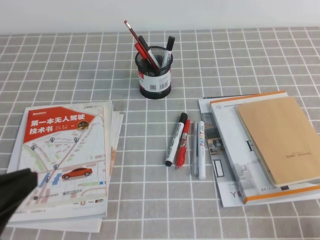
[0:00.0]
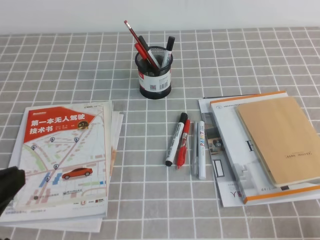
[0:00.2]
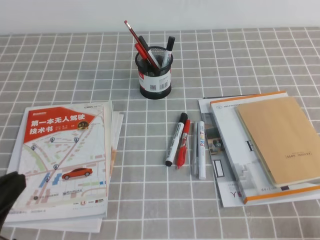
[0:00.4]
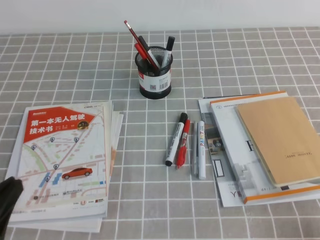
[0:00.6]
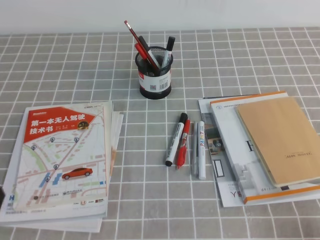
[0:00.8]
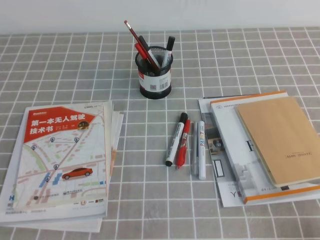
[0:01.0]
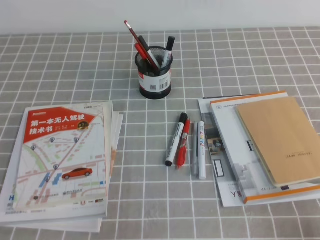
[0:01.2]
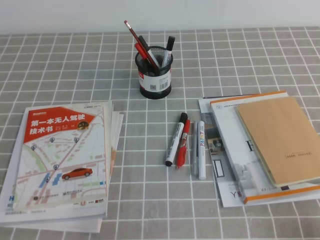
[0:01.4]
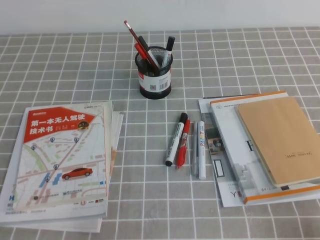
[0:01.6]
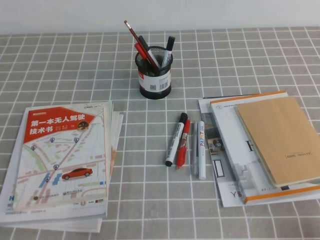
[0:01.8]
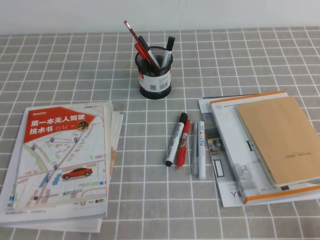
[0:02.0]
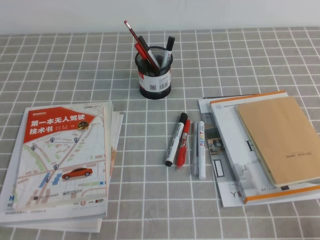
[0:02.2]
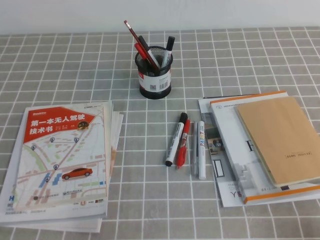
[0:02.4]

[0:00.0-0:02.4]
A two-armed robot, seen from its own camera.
Step, 0:00.0 to 0:02.4: Pick up the pen from the pen holder.
0:00.0 to 0:01.2: The left gripper shifts roughly 15 cm downward.

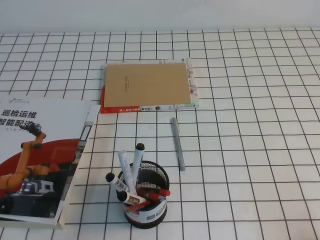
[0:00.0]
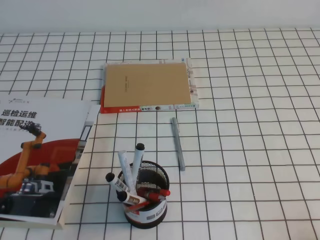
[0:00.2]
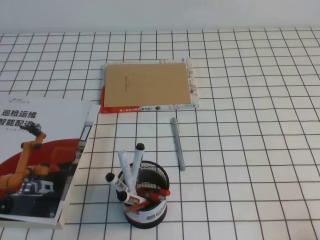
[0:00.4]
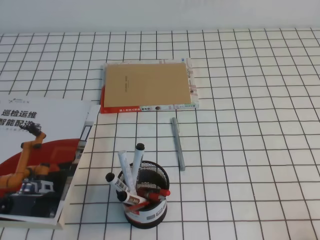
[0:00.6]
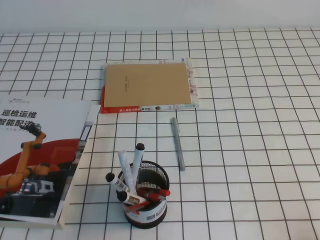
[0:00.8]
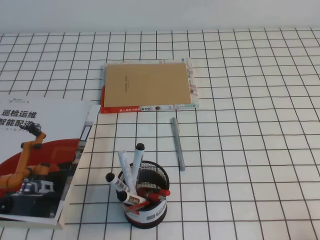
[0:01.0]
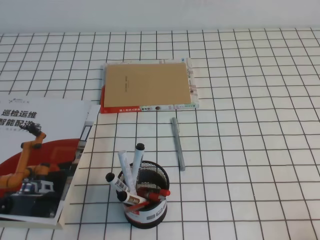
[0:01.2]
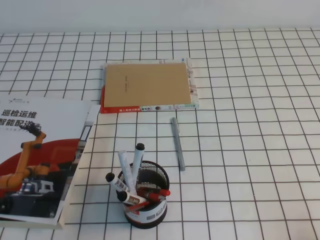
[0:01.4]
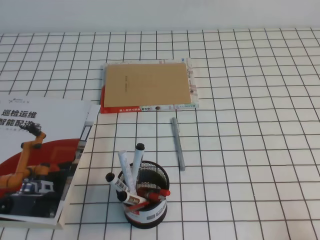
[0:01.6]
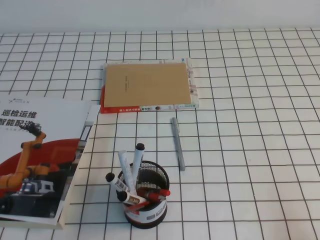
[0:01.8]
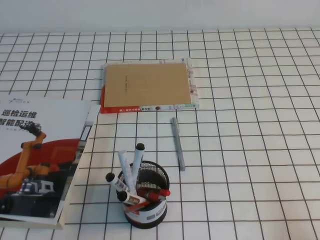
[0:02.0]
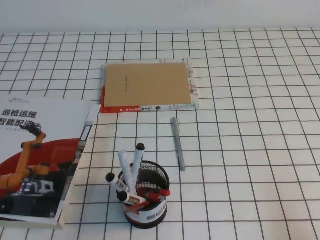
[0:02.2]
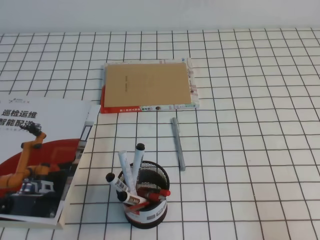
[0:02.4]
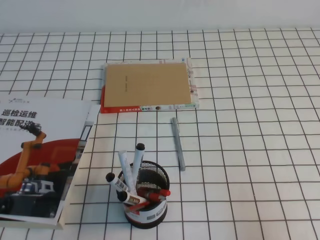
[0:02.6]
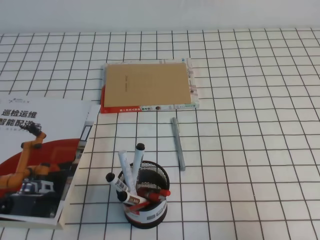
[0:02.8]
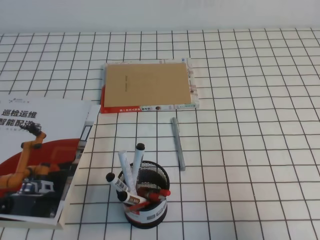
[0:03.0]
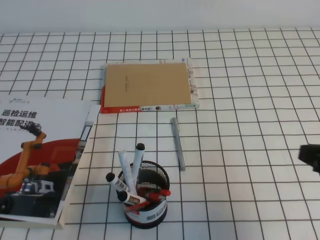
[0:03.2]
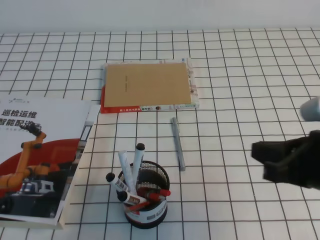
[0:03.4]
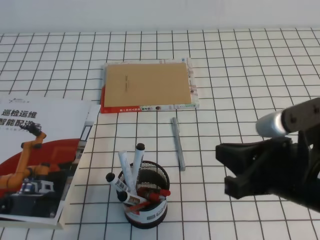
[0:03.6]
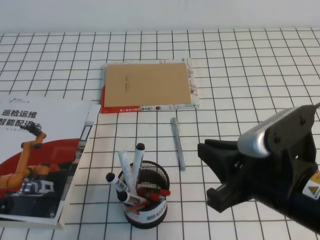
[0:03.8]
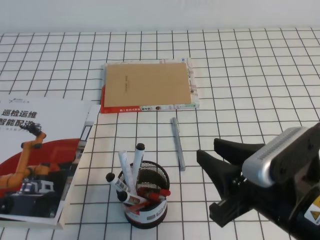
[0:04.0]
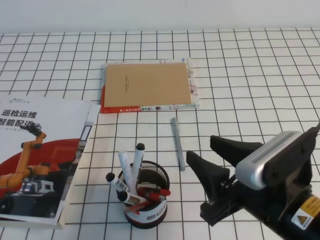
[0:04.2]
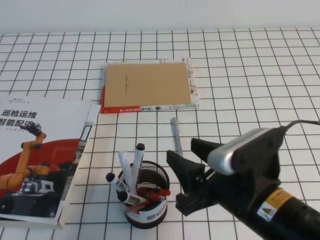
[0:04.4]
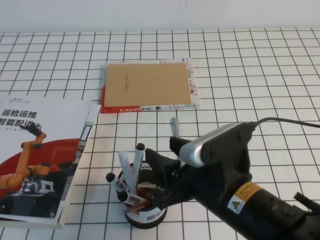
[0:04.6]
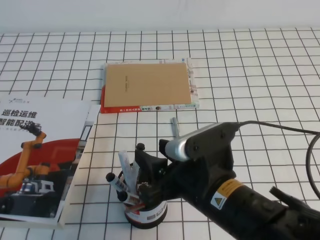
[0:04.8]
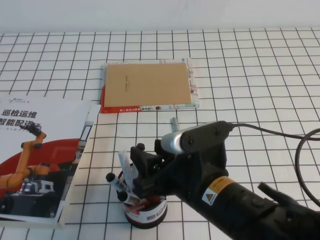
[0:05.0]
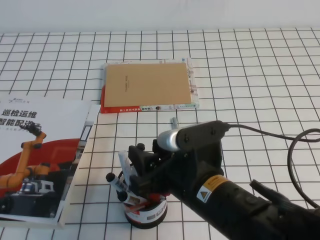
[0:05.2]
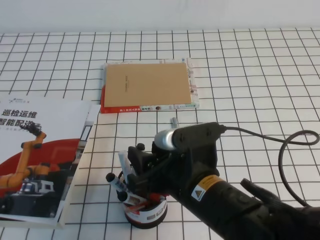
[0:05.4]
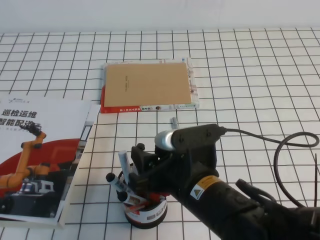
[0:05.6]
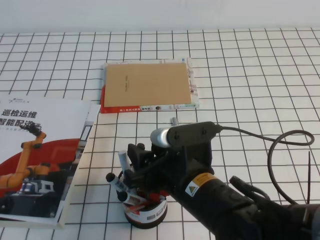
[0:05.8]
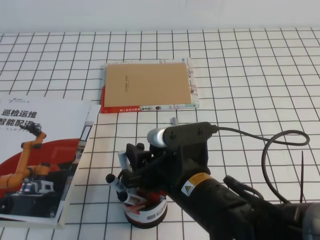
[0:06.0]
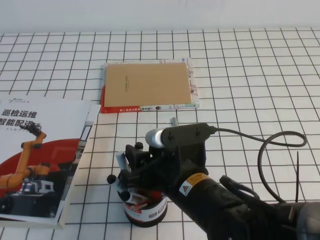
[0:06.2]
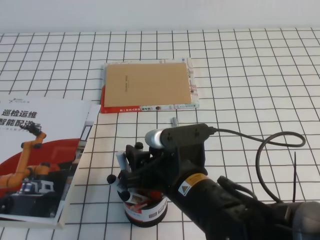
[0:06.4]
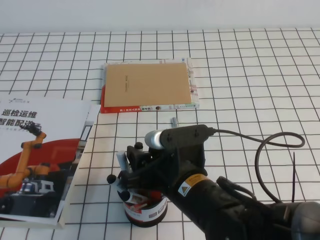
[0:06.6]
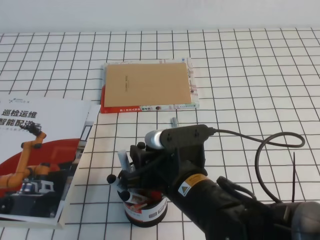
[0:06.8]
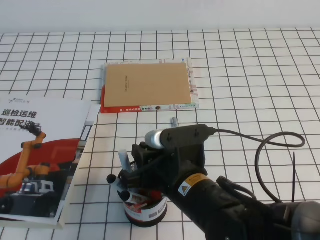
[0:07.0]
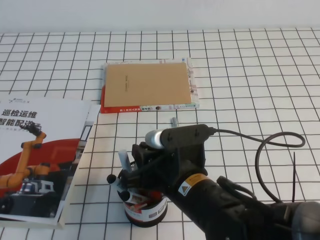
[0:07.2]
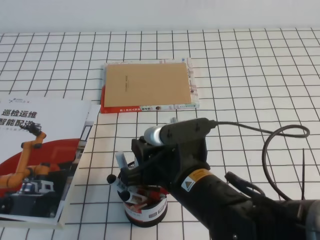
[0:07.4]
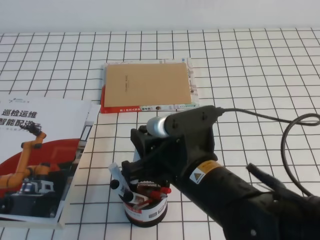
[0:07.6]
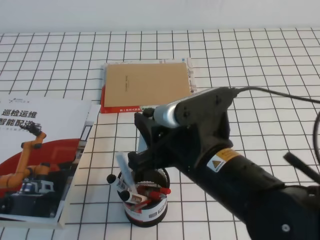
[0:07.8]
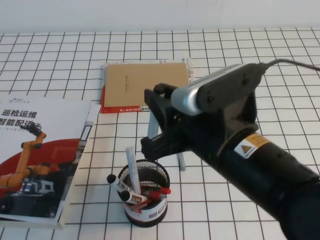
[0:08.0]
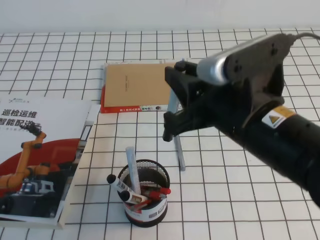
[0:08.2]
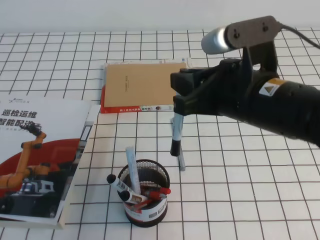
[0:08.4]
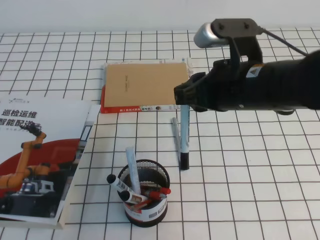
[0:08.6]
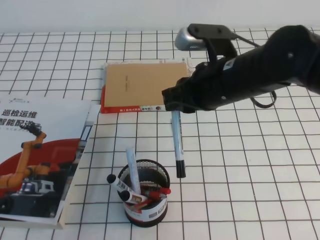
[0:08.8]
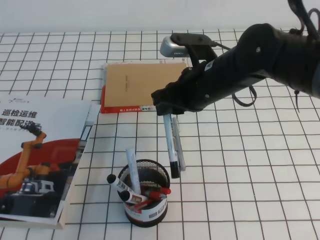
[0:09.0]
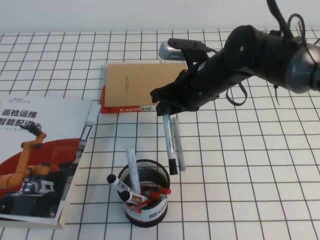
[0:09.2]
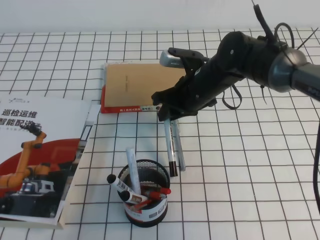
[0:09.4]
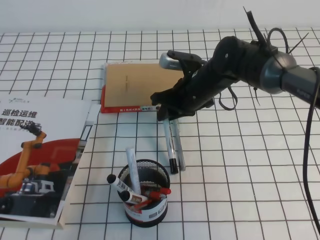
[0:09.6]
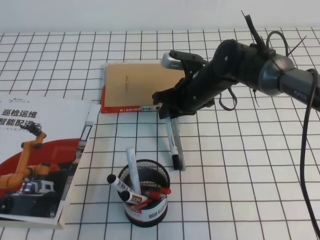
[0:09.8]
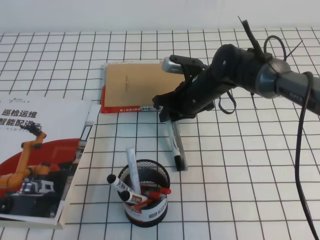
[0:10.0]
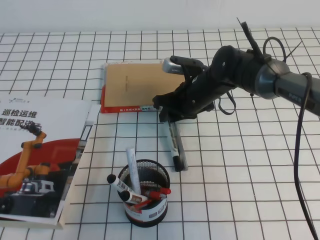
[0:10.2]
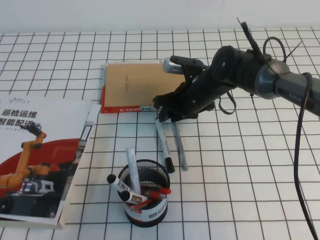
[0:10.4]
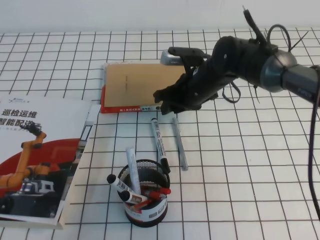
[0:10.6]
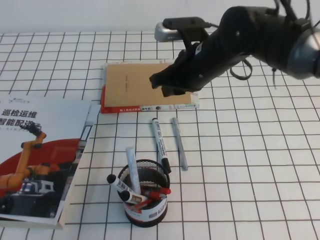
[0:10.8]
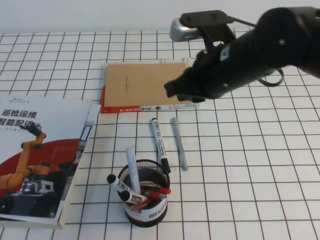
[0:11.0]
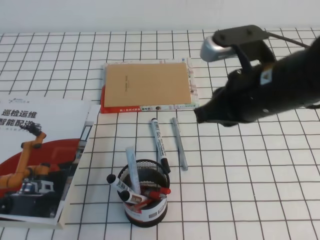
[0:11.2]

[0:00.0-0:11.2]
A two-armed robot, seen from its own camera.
0:01.6 to 0:03.2: The right gripper moves upward, forward and to the left, some 15 cm.
0:03.2 to 0:04.8: The right gripper is displaced to the left by approximately 20 cm, and opens.
0:04.8 to 0:06.4: The right gripper ends up roughly 5 cm from where it was.
0:06.4 to 0:08.0: The right gripper goes about 10 cm upward, and closes.
0:08.0 to 0:09.6: The right gripper heads forward and downward, covering roughly 25 cm.
0:09.6 to 0:11.2: The right gripper shifts about 20 cm backward, upward and to the right.

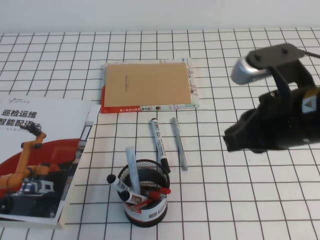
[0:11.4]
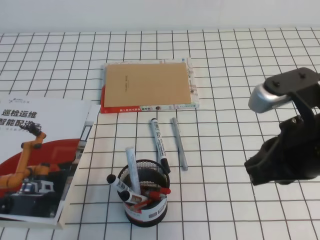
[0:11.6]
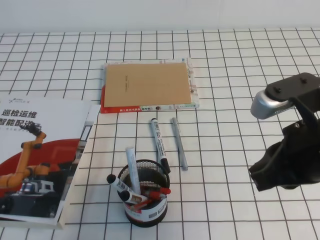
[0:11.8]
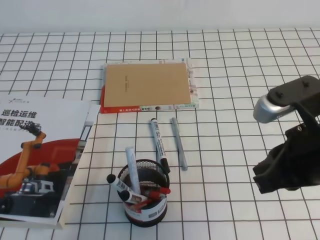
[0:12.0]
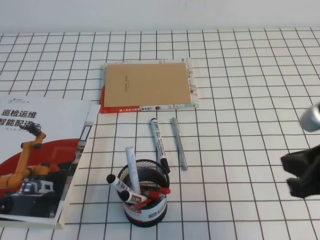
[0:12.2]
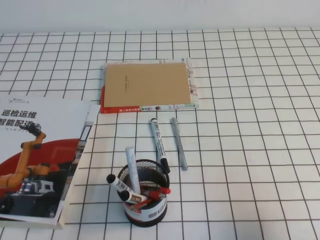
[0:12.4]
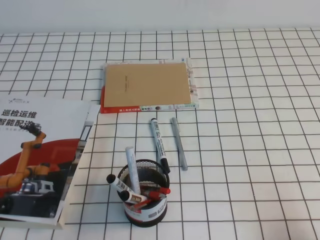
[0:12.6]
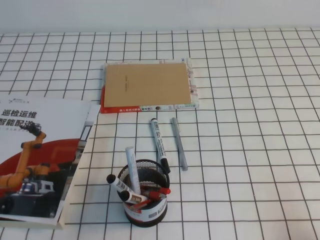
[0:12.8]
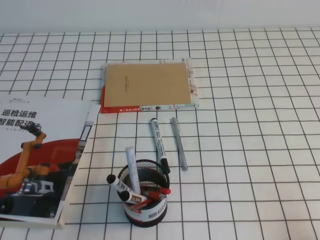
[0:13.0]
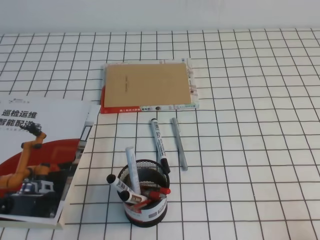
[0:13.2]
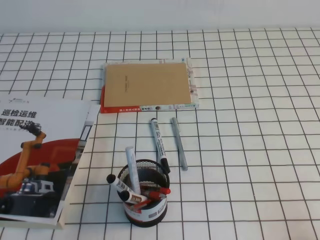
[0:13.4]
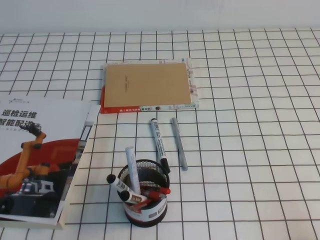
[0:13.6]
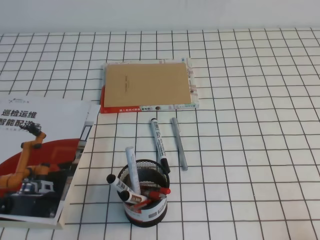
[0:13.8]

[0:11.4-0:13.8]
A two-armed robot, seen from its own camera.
Step, 0:11.4 to 0:13.8: Pick up the pen from the pen holder.
0:11.4 to 0:12.6: The right gripper travels to the right, backward and downward by roughly 20 cm.
